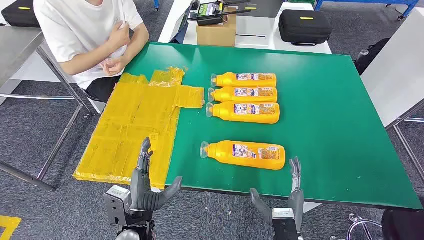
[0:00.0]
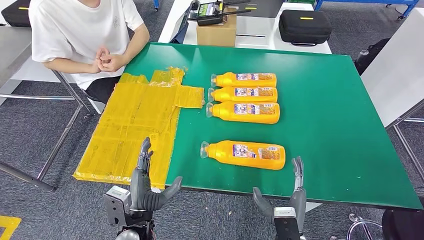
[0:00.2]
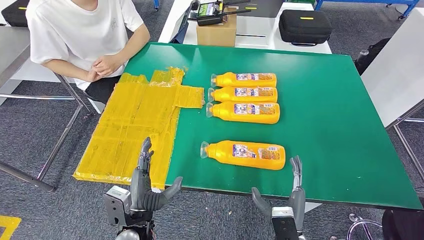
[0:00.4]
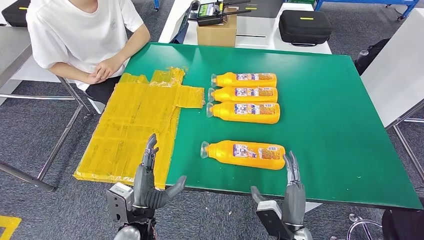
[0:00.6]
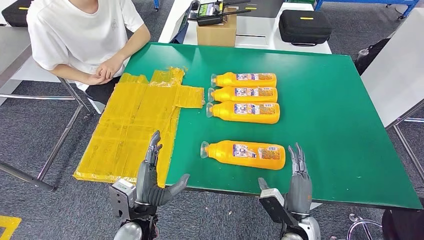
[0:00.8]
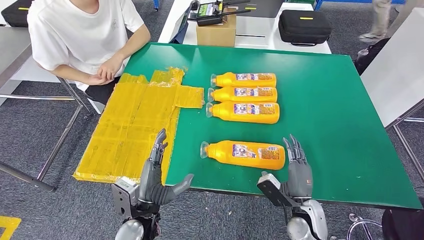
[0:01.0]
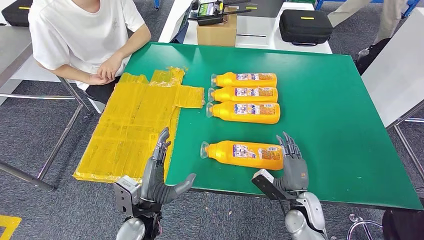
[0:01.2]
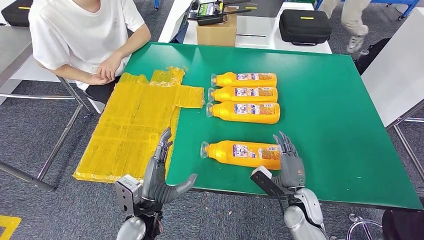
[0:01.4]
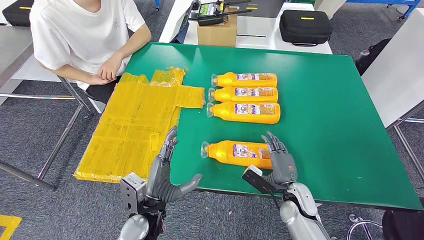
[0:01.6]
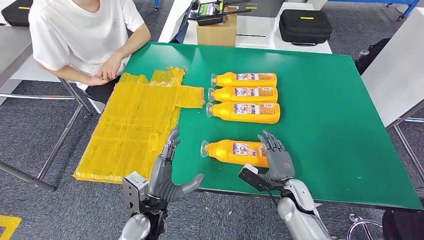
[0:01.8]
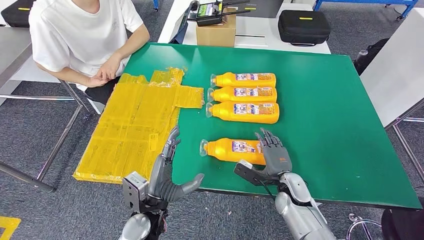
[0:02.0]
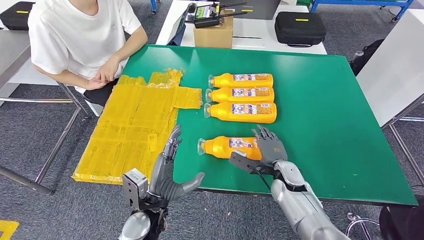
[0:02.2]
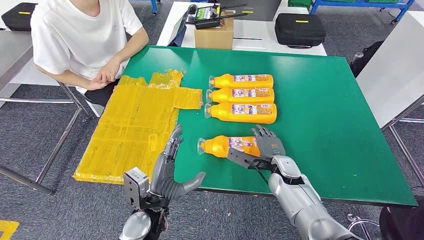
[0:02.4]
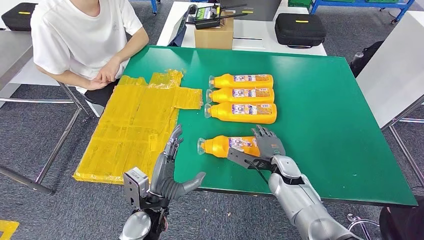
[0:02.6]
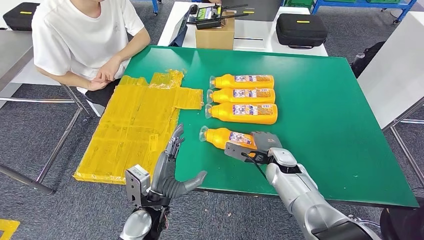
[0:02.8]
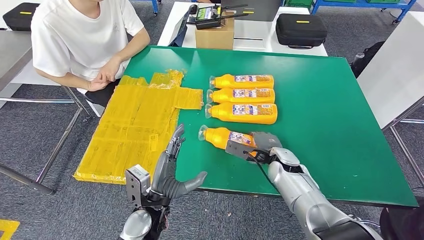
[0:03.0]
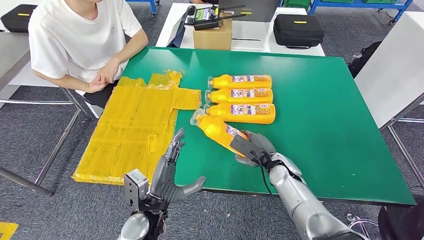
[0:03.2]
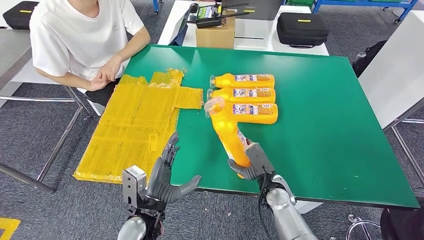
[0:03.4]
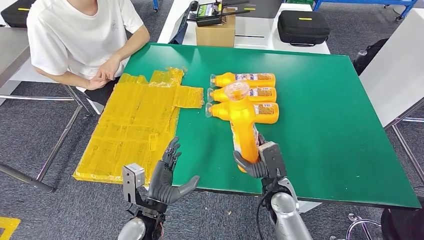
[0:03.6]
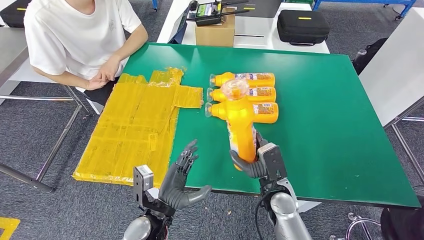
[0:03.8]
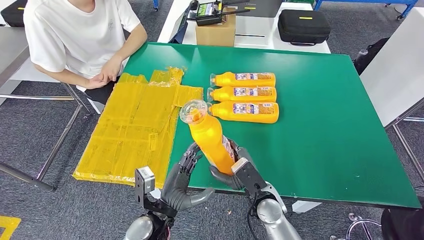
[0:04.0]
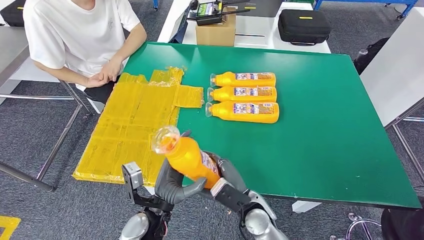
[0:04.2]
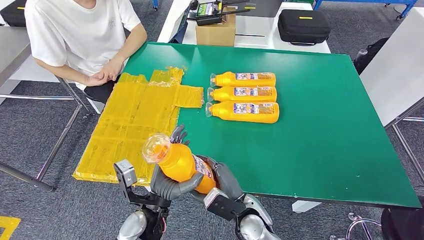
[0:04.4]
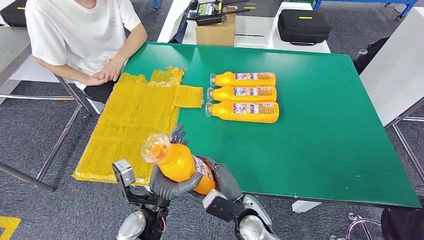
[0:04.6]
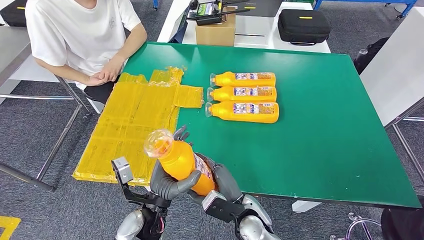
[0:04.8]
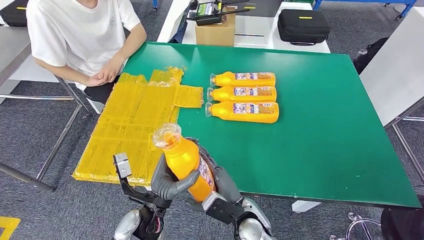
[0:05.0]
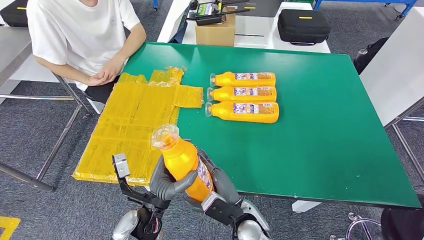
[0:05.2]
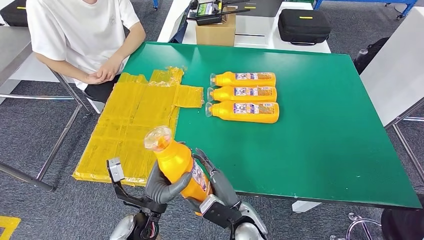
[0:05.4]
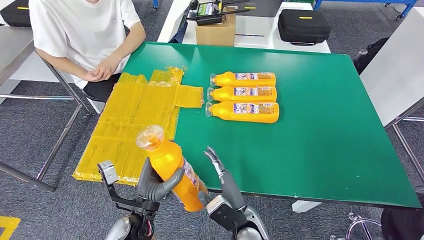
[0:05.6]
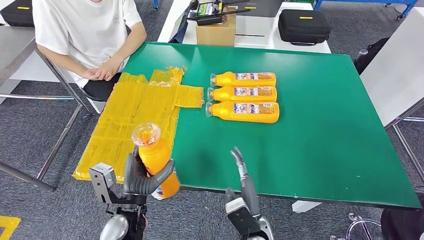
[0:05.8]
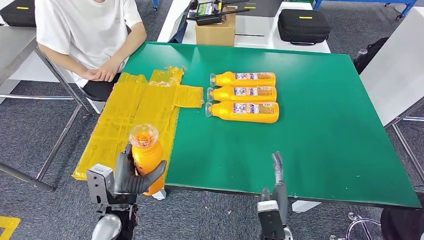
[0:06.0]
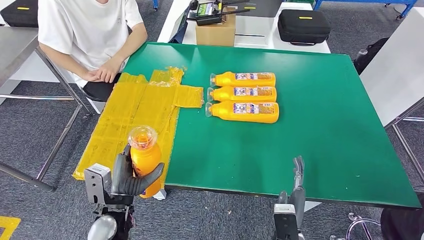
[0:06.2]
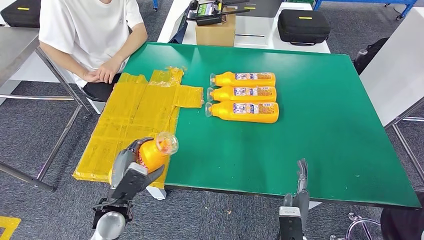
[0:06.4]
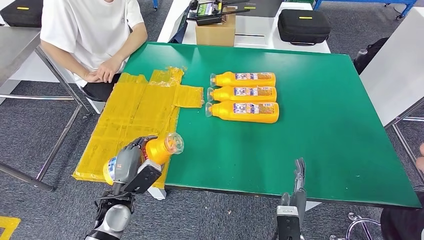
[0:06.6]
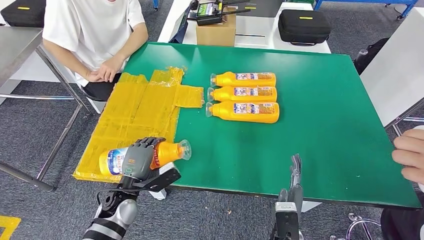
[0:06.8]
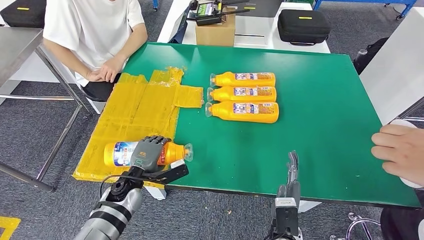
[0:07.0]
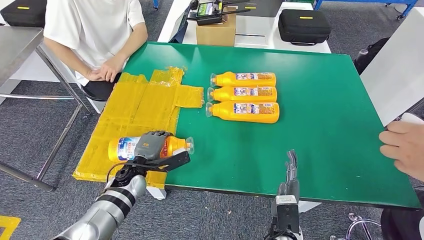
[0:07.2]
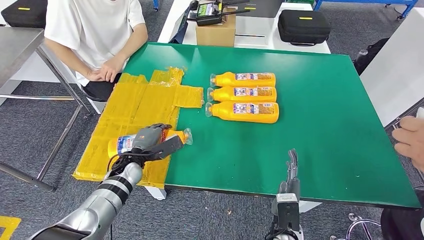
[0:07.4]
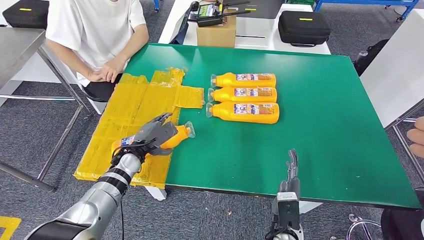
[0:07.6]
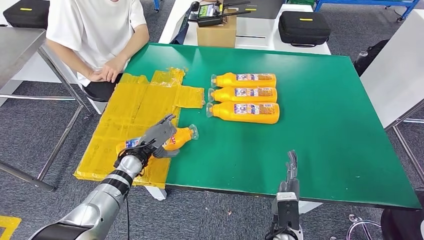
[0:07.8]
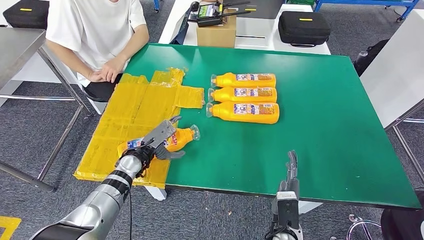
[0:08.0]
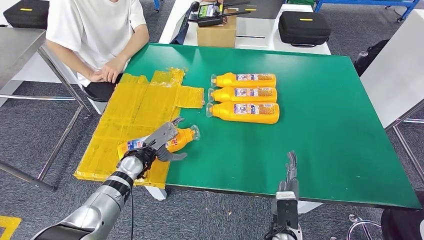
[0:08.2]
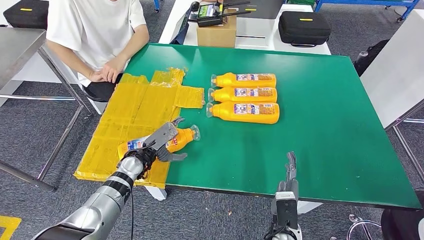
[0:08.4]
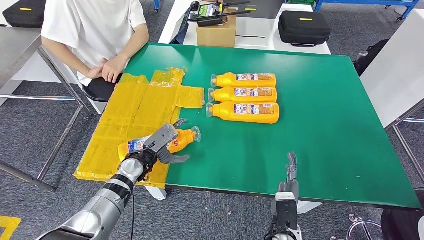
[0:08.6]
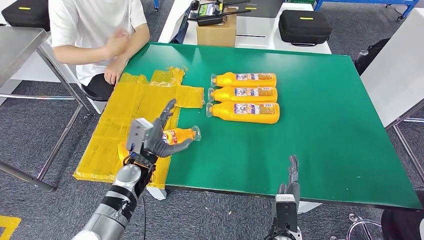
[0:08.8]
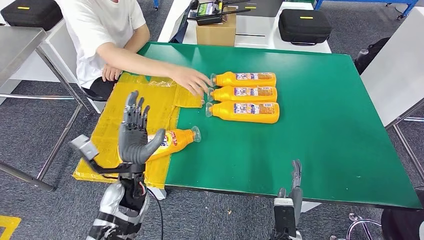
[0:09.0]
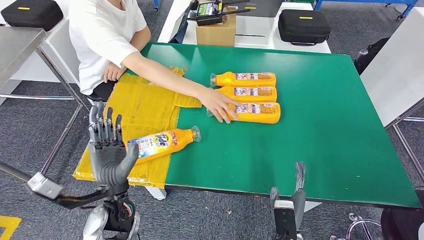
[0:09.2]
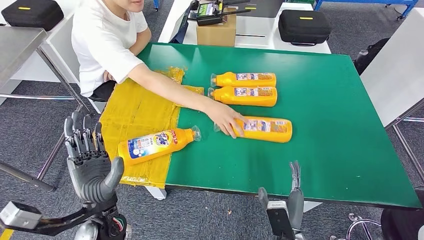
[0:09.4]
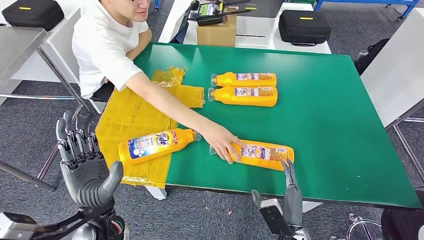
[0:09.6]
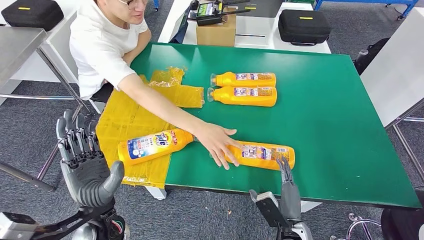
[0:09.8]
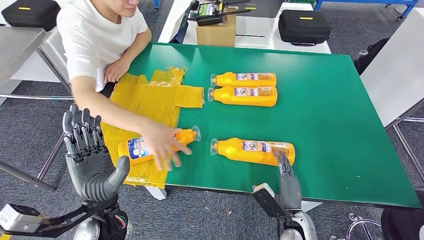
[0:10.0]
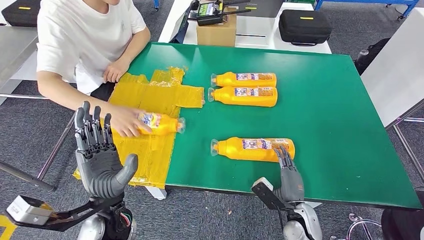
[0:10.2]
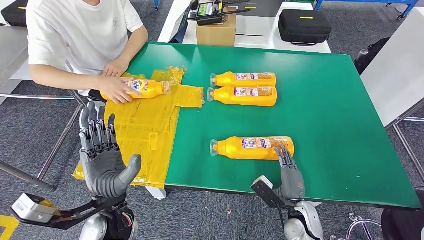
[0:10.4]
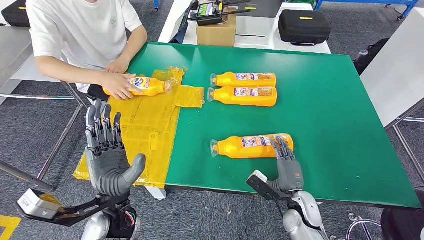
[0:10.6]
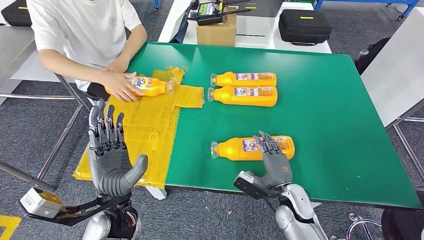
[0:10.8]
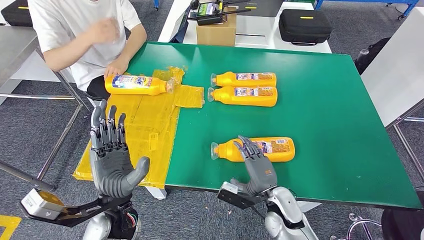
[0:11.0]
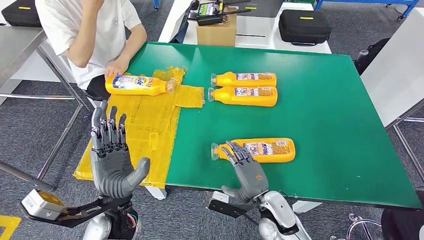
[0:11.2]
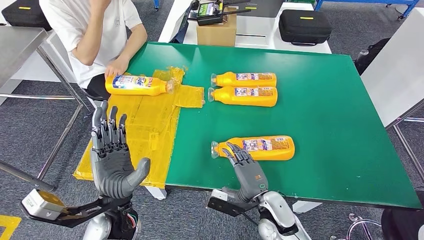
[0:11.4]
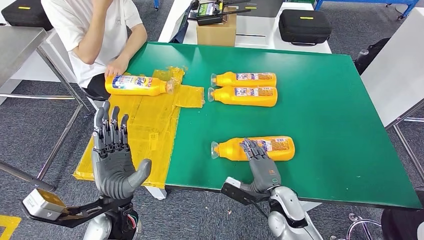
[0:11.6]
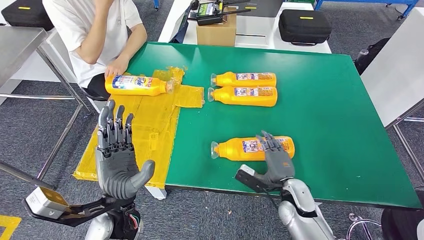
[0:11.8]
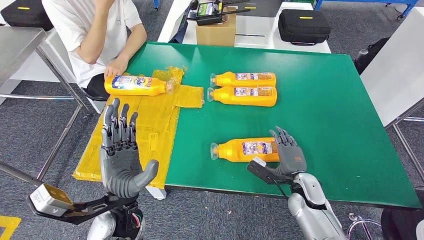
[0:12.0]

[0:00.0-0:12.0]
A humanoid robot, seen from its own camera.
Step, 0:00.0 to 0:04.8: Take the fast-moving consumer goods bottle from the table.
Step, 0:05.0 to 0:09.6: Flip the fast-moving consumer goods bottle to the front side.
0:04.4 to 0:06.0: The right hand moves backward and to the right, approximately 5 cm. Meanwhile the left hand is displaced to the left by about 10 cm.
0:06.0 to 0:07.6: The left hand is displaced forward by approximately 15 cm.
0:10.4 to 0:12.0: The right hand goes some 5 cm forward, and goes to the left and returns, about 10 cm each way.

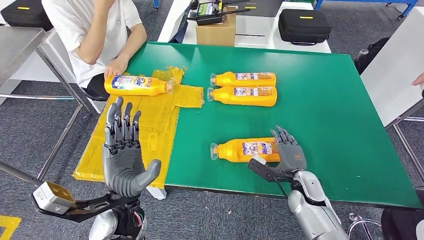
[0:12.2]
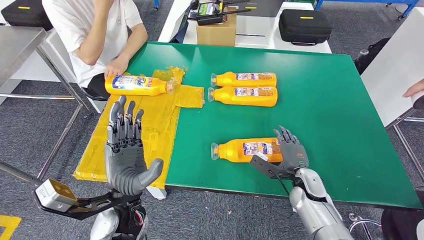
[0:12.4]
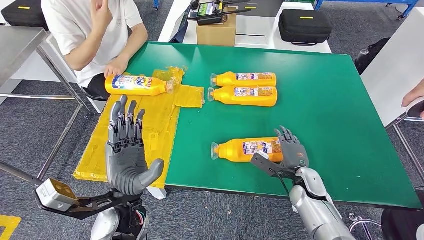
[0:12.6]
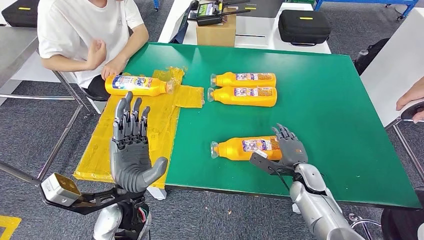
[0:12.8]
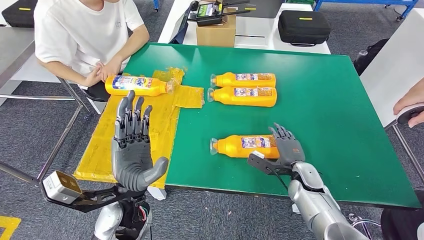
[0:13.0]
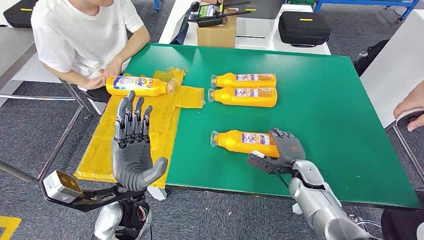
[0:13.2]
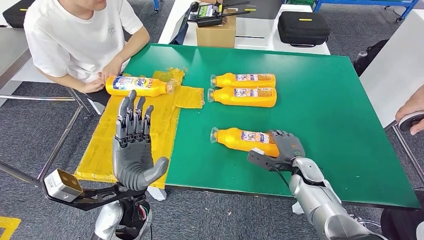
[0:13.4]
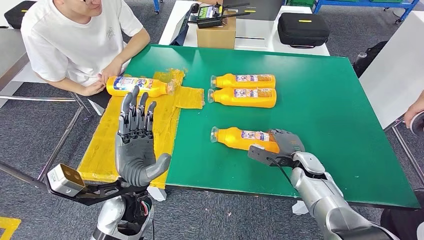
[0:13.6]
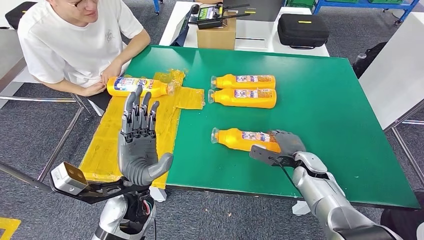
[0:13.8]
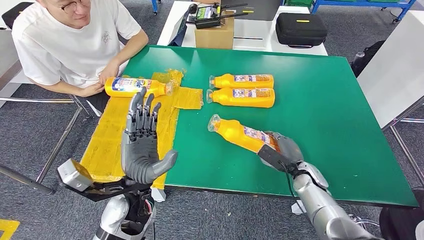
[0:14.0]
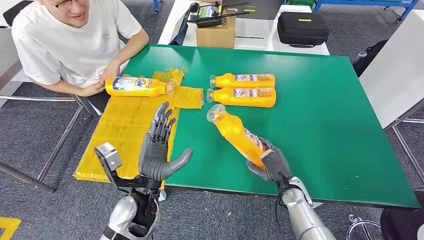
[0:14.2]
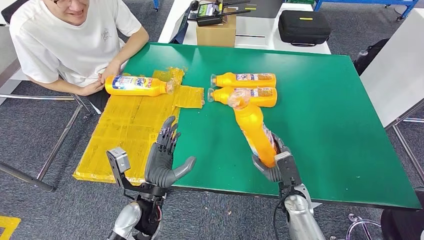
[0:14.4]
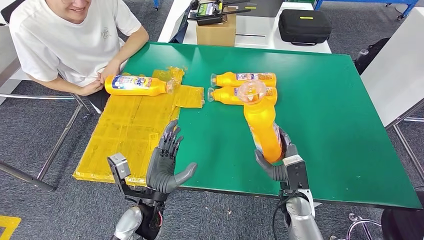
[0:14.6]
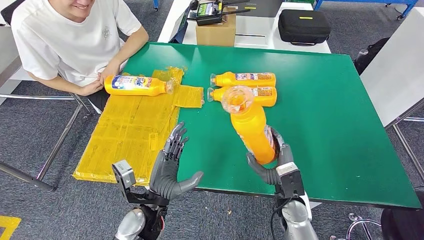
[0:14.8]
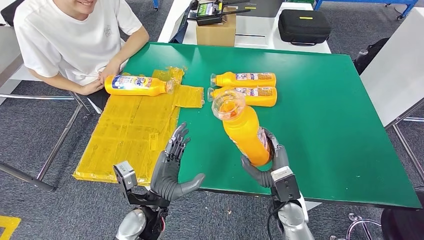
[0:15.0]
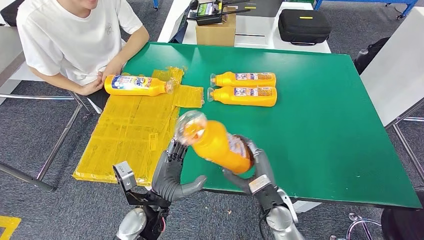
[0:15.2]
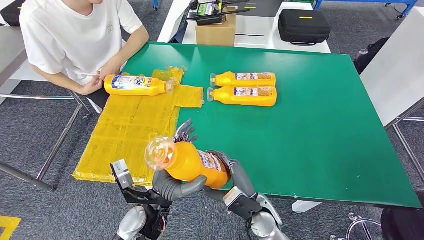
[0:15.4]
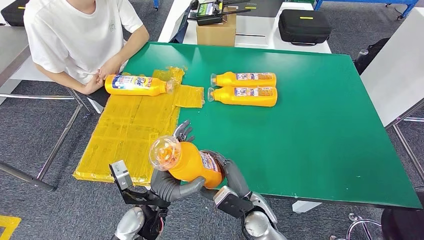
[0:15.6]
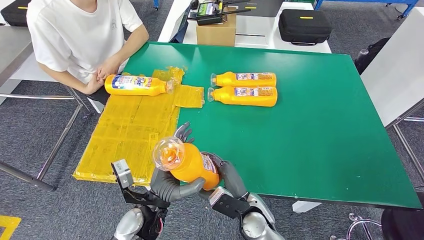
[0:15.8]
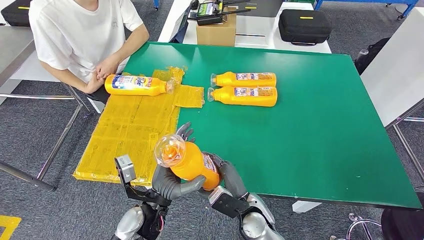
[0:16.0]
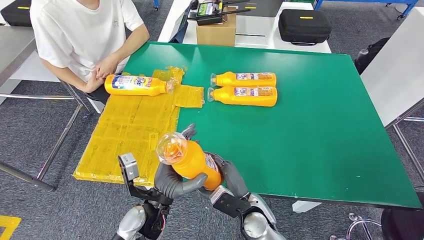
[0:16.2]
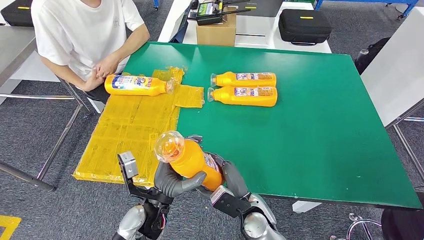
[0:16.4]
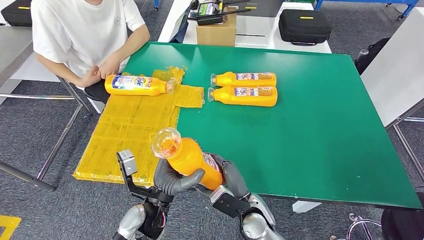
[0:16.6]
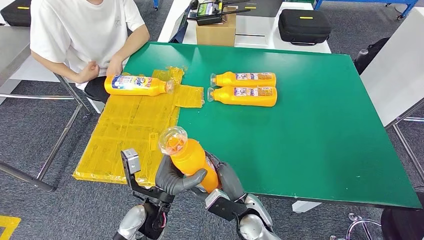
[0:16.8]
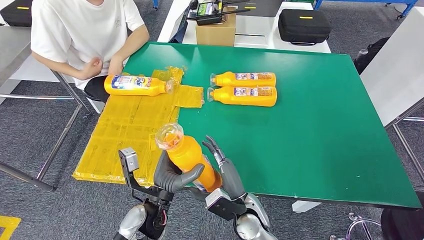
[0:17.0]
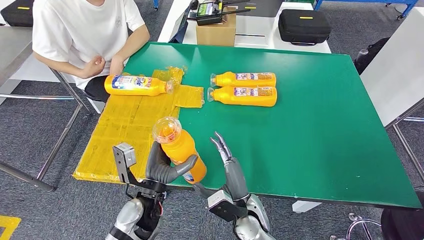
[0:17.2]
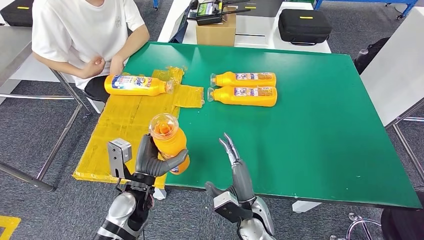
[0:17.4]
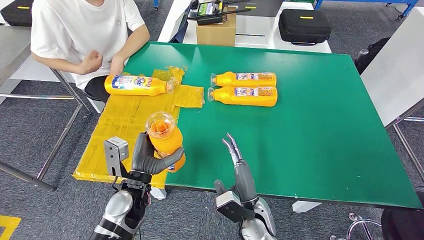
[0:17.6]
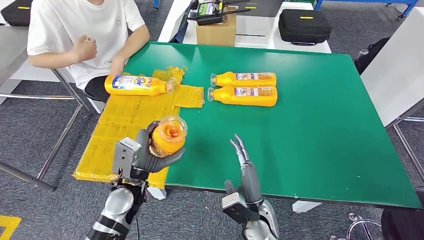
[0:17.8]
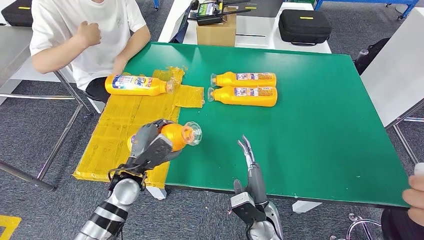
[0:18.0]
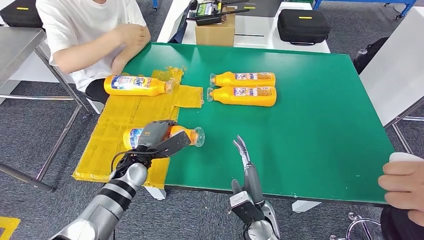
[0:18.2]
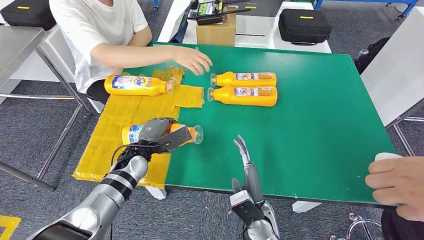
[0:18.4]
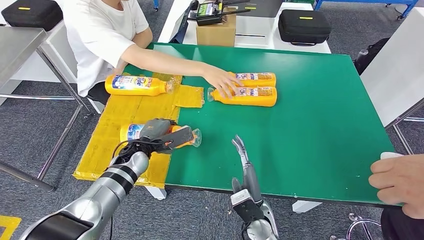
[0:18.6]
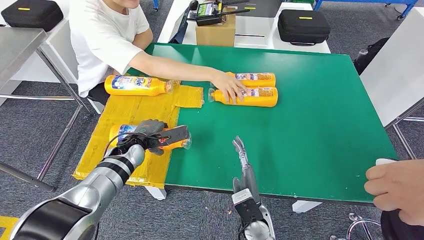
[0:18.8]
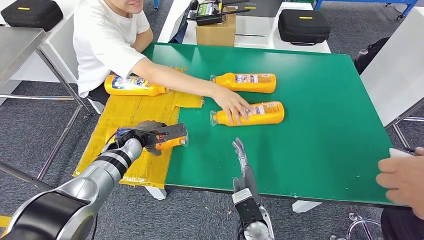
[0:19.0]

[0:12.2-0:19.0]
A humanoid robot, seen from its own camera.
Step, 0:12.2 to 0:16.6: Pick up the fast-moving consumer goods bottle from the table.
0:15.0 to 0:16.2: The right hand is displaced to the left by some 10 cm.
0:16.2 to 0:17.6: The left hand goes some 5 cm to the left.
